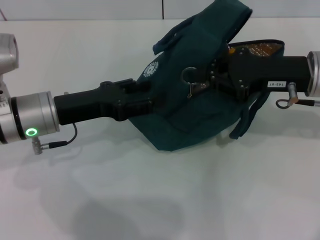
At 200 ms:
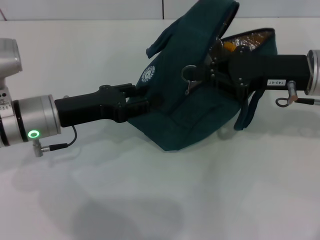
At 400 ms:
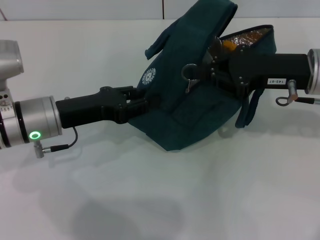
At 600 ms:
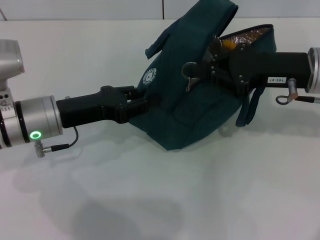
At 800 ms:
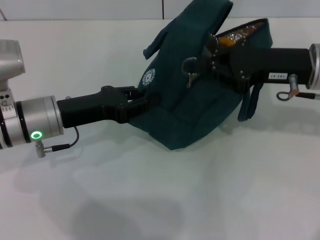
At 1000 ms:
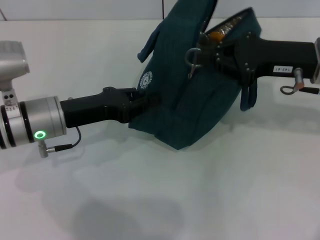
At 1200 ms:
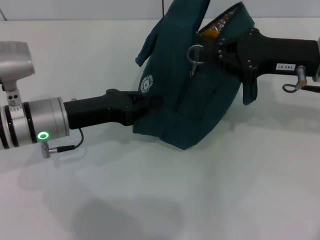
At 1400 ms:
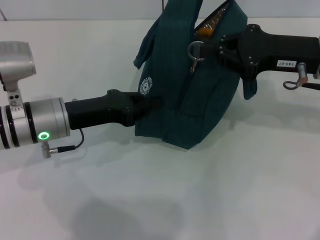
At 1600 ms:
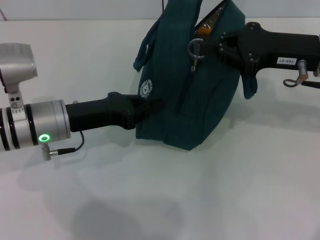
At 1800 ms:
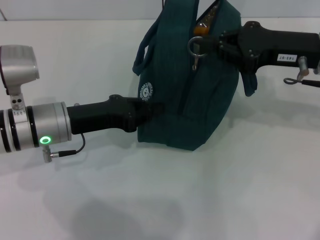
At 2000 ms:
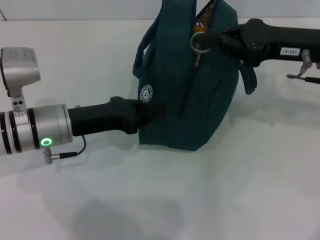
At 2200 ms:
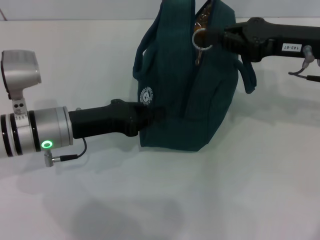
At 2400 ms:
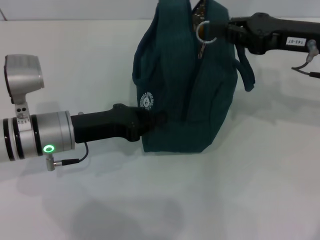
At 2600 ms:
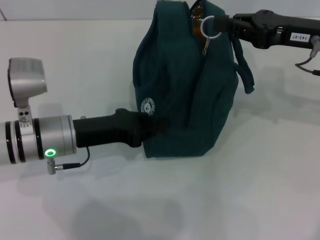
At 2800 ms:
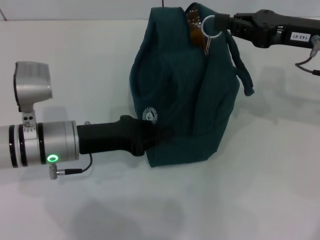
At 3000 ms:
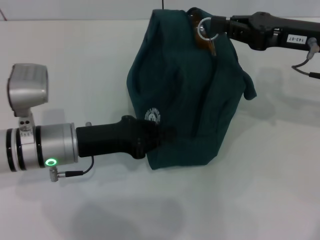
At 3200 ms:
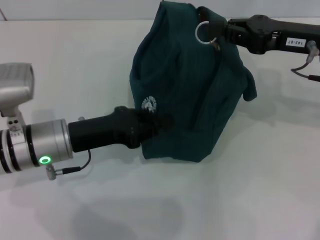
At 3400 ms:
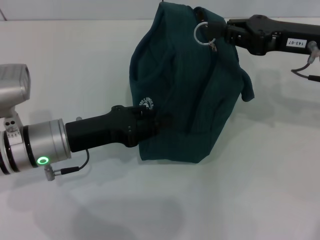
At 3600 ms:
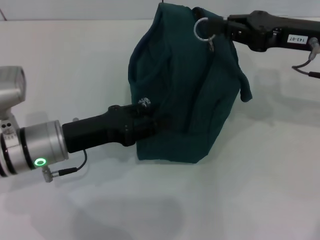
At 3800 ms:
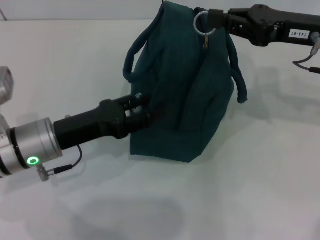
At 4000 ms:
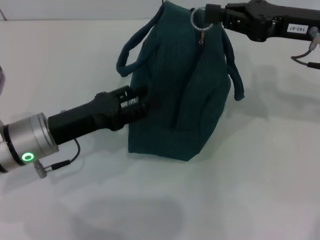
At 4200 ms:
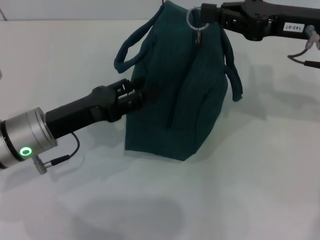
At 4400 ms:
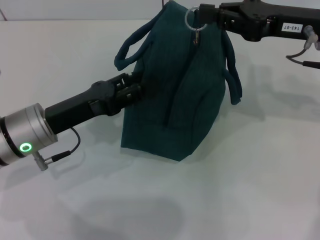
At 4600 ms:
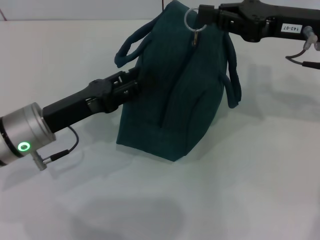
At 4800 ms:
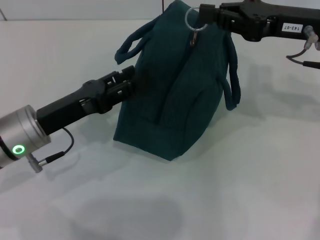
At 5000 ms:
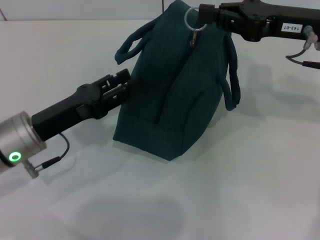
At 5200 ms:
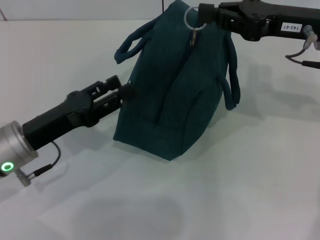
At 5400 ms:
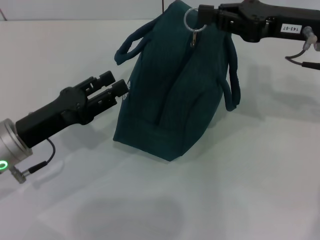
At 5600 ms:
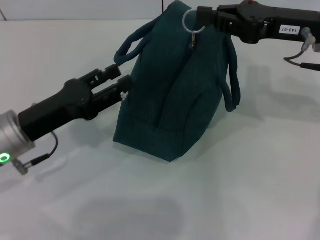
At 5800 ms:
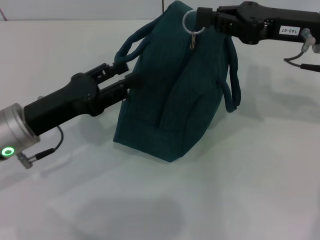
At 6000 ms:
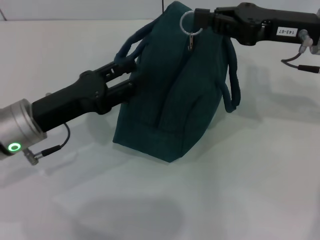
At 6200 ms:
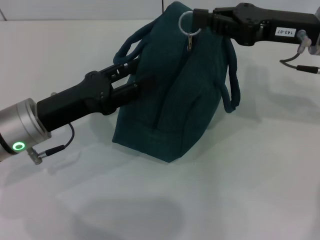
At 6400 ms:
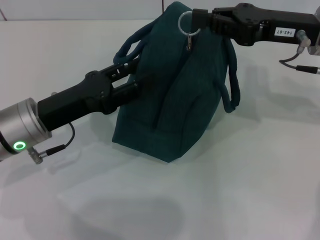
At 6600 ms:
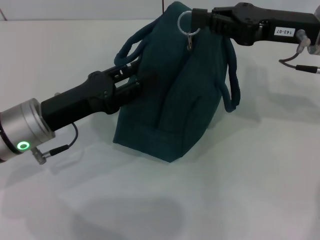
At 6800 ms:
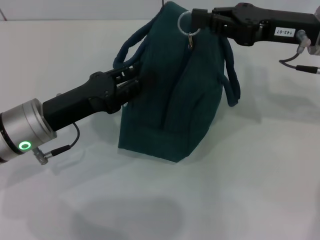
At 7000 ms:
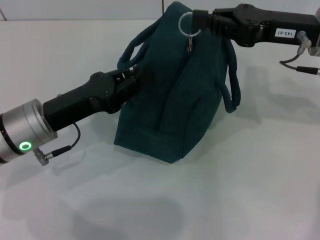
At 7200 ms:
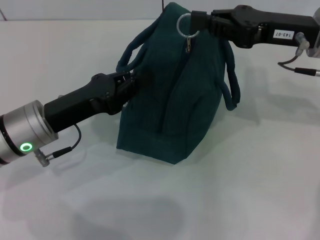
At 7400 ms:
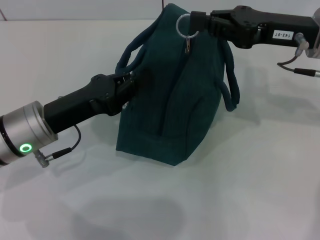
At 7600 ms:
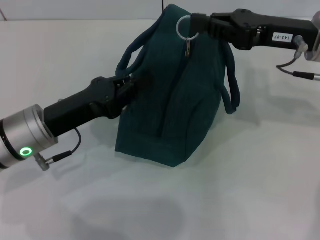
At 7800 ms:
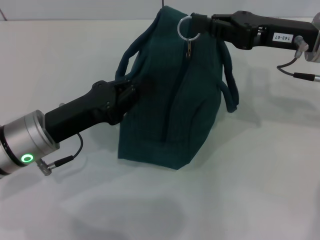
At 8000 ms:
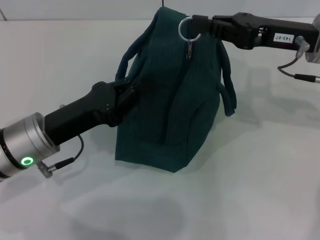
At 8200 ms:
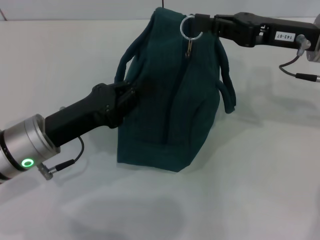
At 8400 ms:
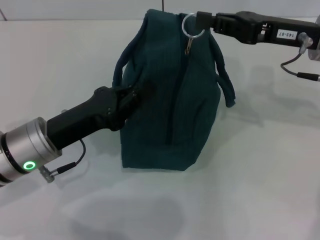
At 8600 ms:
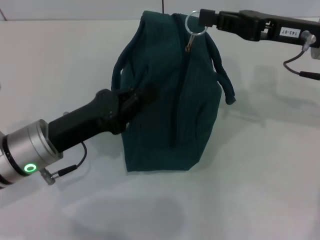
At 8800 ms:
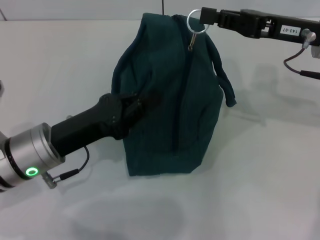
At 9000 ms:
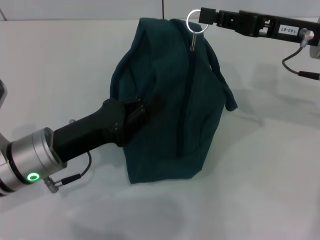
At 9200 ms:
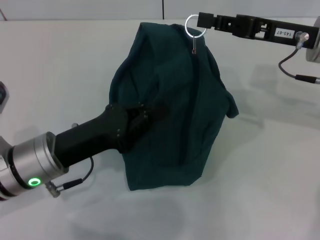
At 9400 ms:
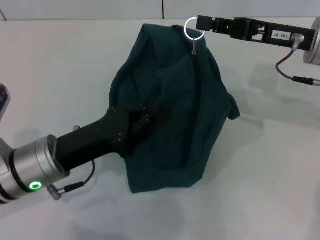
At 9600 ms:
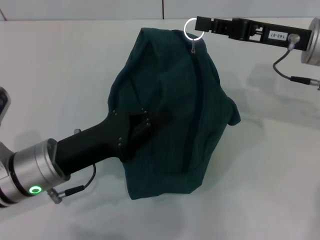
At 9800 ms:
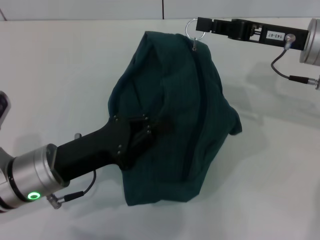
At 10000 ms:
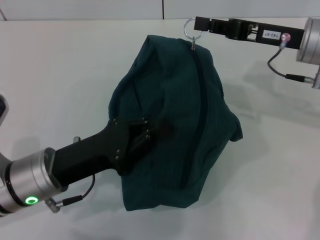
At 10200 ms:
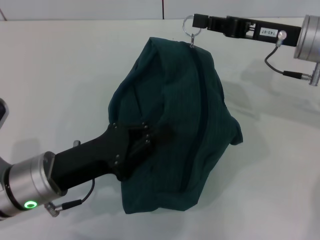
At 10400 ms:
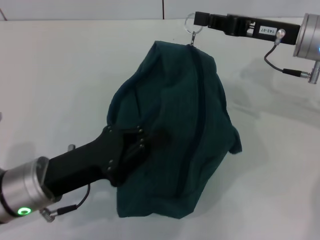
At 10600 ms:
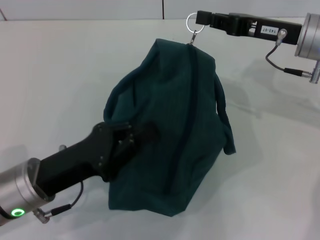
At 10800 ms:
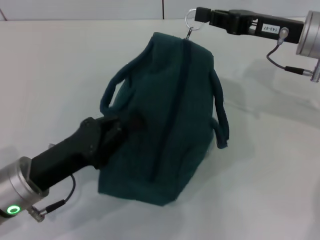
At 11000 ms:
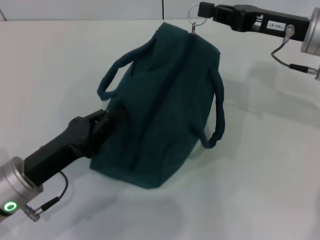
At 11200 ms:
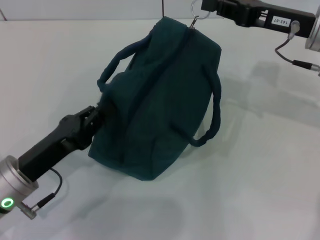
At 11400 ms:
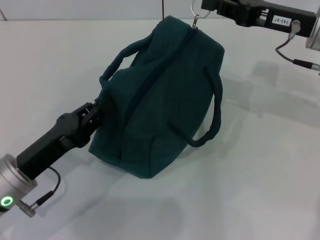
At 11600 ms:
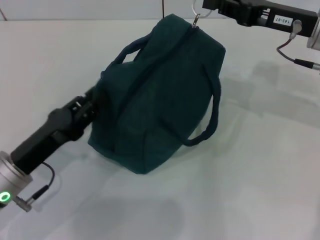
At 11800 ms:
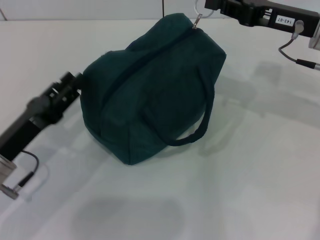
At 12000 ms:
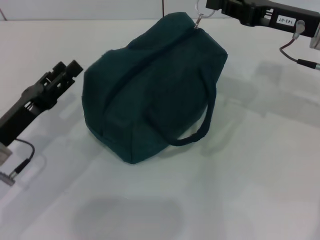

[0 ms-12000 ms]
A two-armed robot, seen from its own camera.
0 ms to 1600 ms: The left gripper closes its fingers.
3000 ms to 4400 ms: The left gripper opens up.
4400 ms to 6000 ms: The grippers make only small movements.
6000 ms to 7600 ms: The left gripper closes its fingers.
10400 ms to 12000 ms: The left gripper heads to the left, covering roughly 5 cm, and opens its fingers.

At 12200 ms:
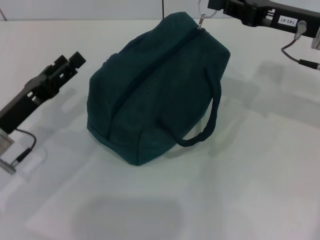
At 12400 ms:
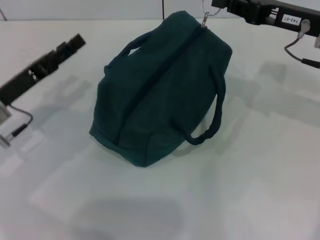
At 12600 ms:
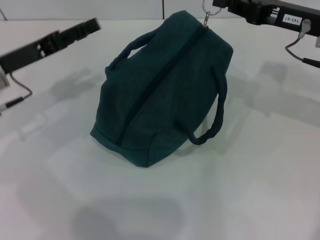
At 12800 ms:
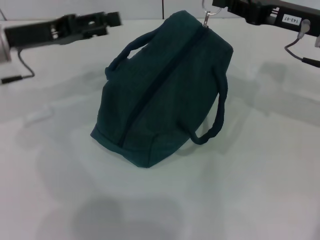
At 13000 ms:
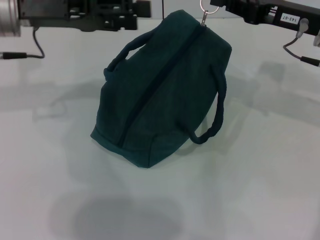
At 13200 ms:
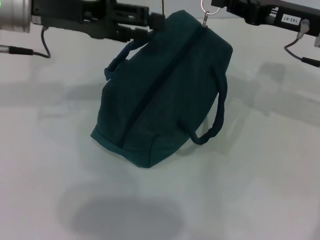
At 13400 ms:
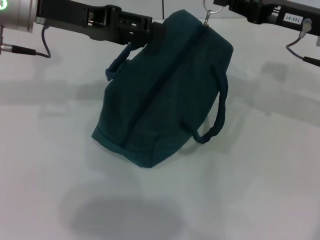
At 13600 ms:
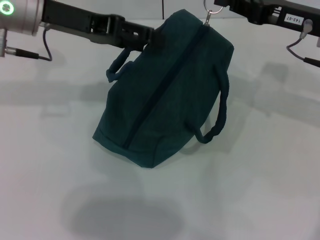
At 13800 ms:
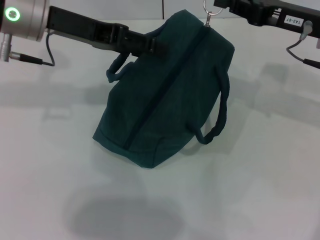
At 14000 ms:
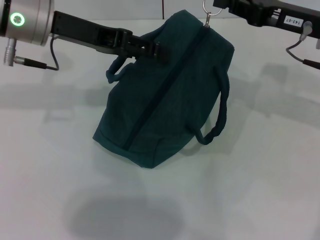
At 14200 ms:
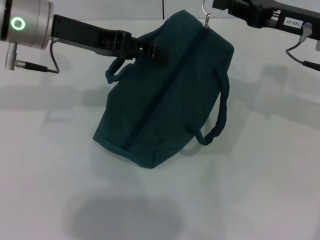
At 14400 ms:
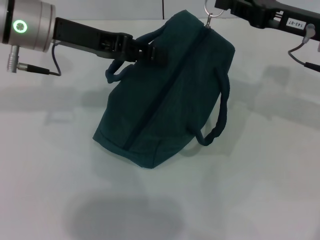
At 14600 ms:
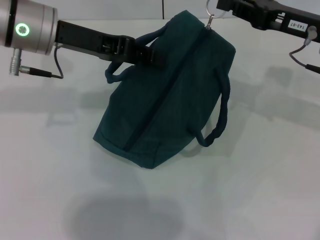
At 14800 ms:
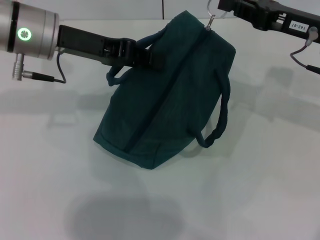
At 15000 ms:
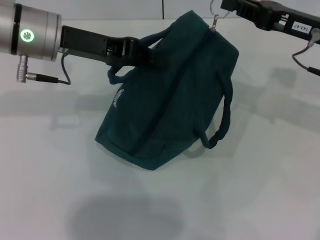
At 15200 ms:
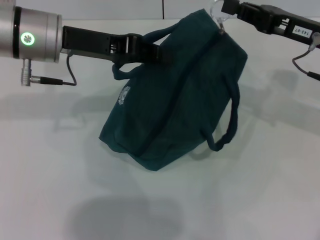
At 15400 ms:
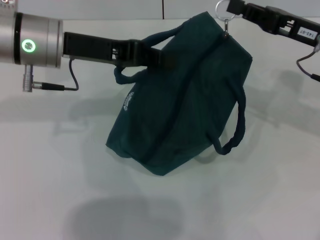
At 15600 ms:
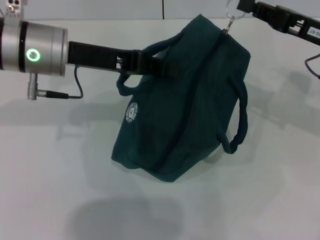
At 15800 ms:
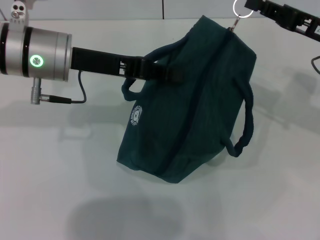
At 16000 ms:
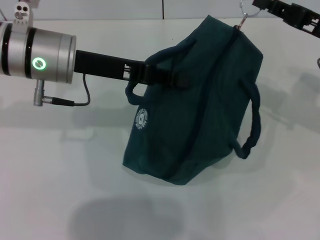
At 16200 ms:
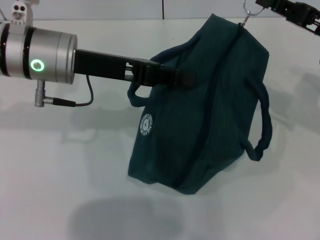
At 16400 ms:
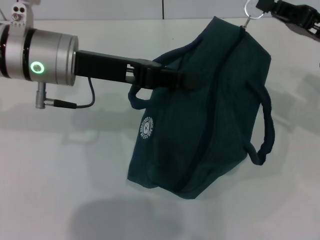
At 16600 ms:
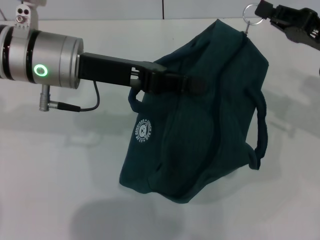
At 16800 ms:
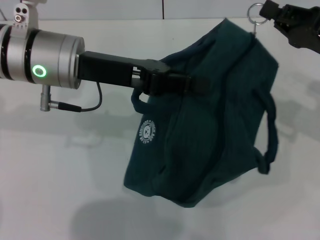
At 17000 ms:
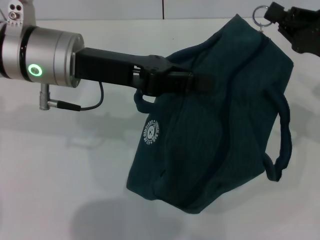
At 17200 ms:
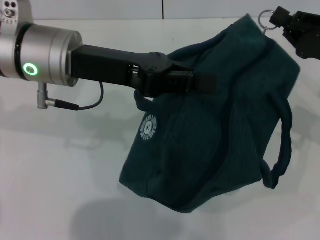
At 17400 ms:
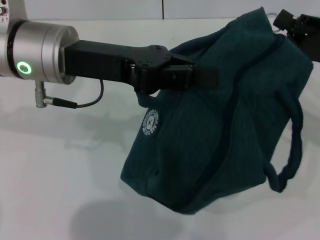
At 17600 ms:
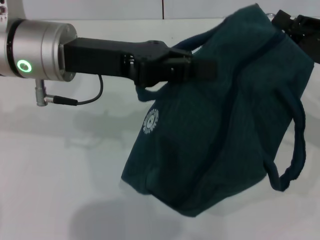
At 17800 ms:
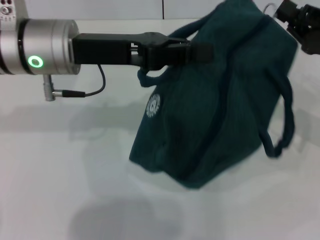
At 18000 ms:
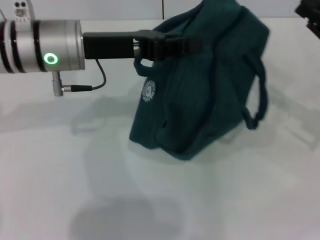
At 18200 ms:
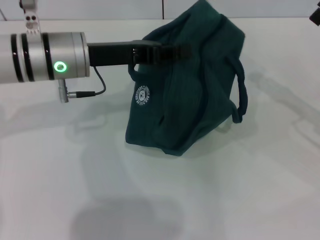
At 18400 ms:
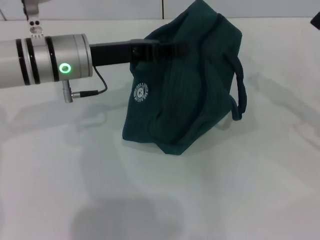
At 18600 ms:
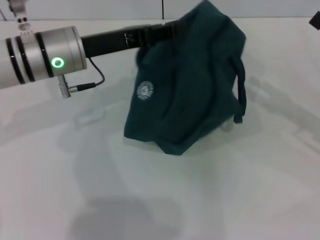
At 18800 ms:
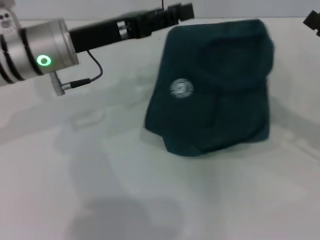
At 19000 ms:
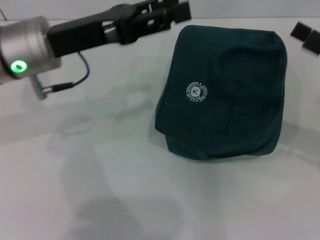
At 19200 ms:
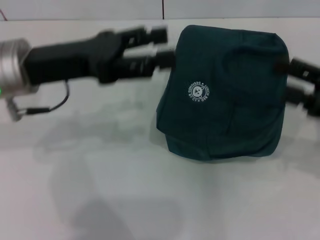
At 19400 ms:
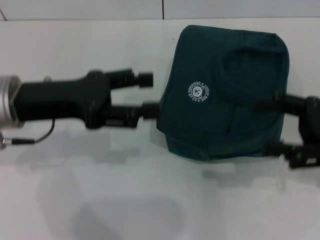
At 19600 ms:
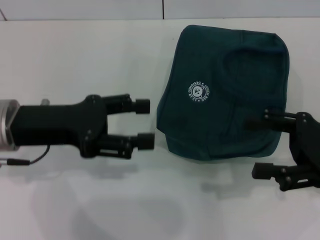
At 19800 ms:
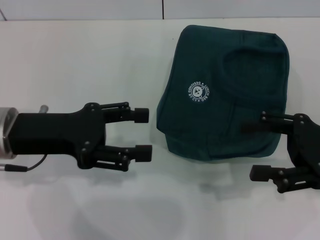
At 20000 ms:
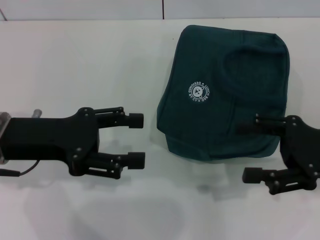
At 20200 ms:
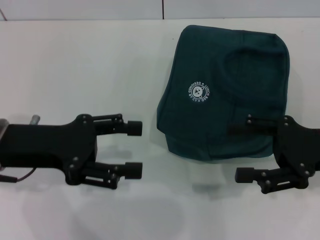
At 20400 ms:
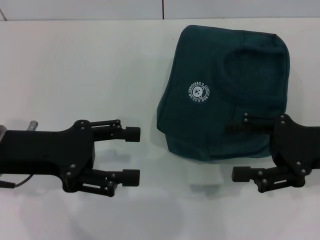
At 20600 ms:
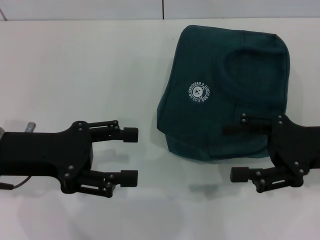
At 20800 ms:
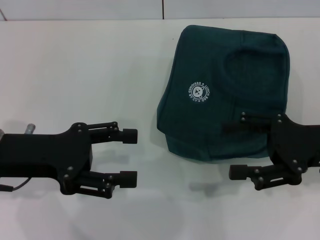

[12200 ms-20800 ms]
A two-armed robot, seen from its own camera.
Step, 12200 ms to 17800 ms: Zip up the lunch bag with your right hand.
Step, 18000 ms to 18600 ms: Hold the lunch bag with your left hand.
12200 ms to 13600 ms: The left gripper moves upward, forward and to the right, some 20 cm.
13600 ms to 15000 ms: The left gripper closes up.
15000 ms to 16600 ms: The right gripper shifts by some 5 cm.
16600 ms to 18000 ms: The right gripper moves some 5 cm.
18000 ms to 19400 ms: The left gripper shifts approximately 10 cm backward and to the left, and opens its fingers, while the right gripper goes approximately 5 cm backward, and opens up.
19400 ms to 20800 ms: The left gripper shifts by about 5 cm.

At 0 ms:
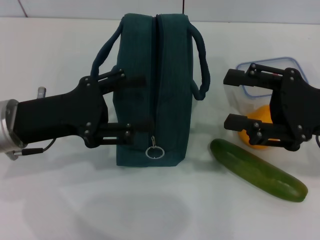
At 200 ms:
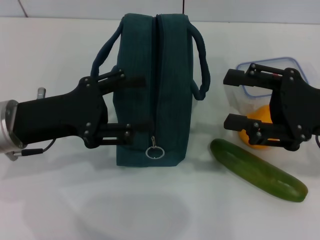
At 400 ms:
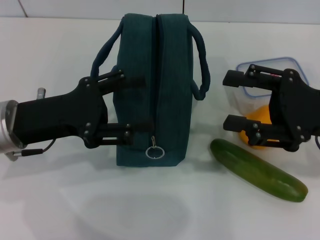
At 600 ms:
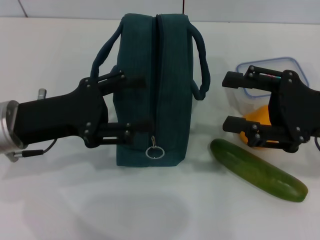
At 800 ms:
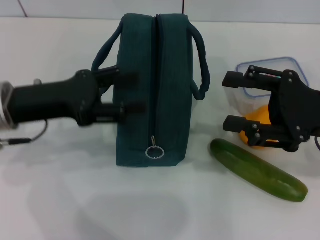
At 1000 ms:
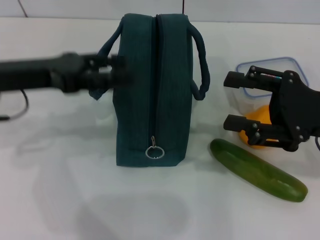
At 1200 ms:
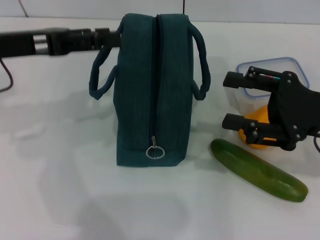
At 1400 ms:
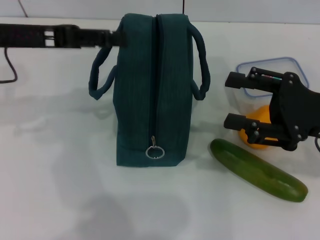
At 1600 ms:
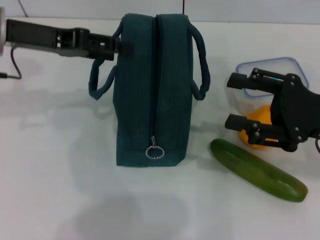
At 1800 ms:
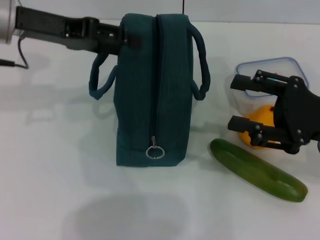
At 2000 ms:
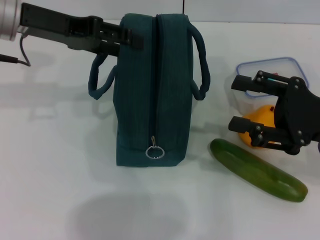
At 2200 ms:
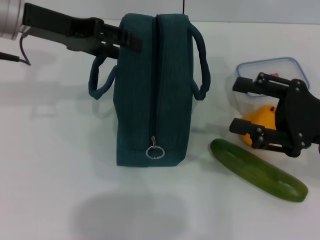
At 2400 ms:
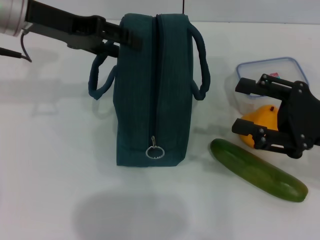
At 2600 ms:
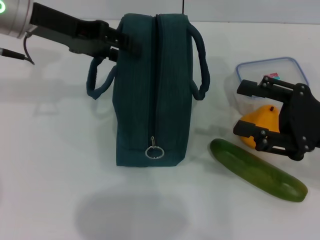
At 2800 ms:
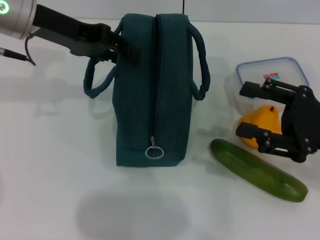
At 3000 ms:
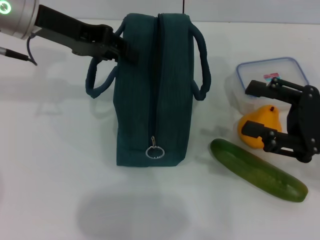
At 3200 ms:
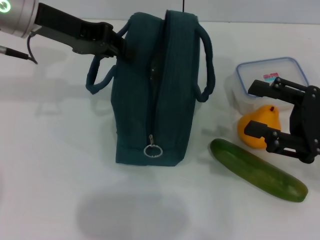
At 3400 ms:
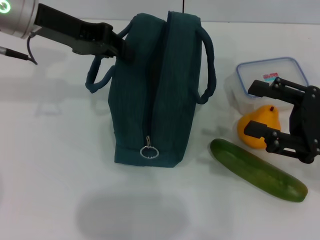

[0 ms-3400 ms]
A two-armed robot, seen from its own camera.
Step, 0 ms to 3200 ms: Hold the lunch bag with your left hand.
0 ms to 1600 ms: The left gripper moves forward and upward, approximately 15 cm.
1600 ms to 3400 ms: The left gripper closes.
